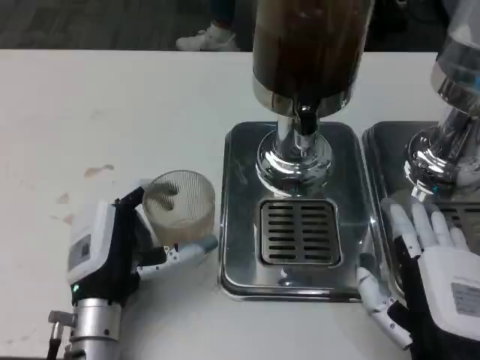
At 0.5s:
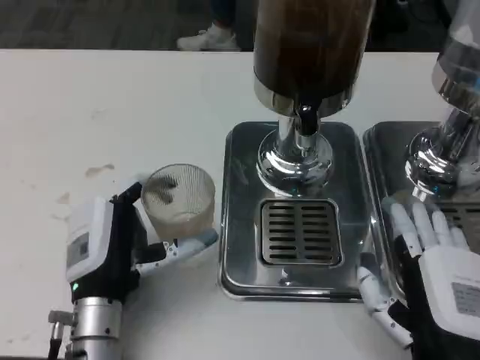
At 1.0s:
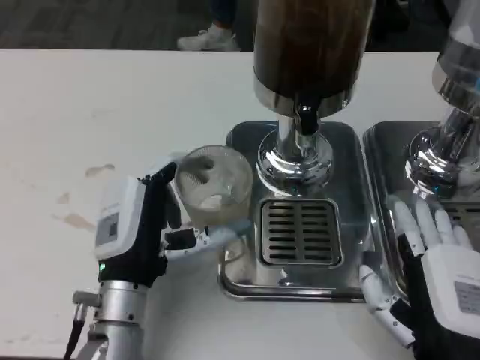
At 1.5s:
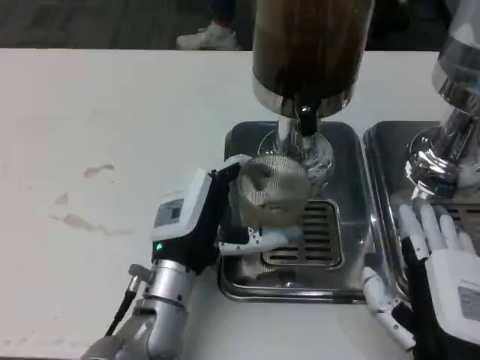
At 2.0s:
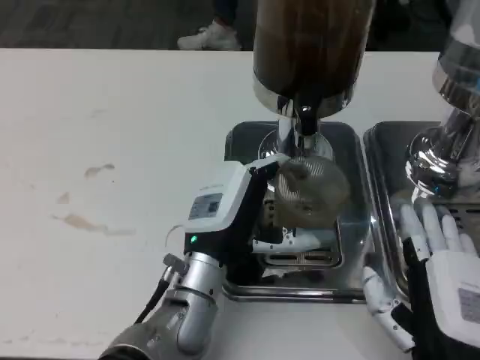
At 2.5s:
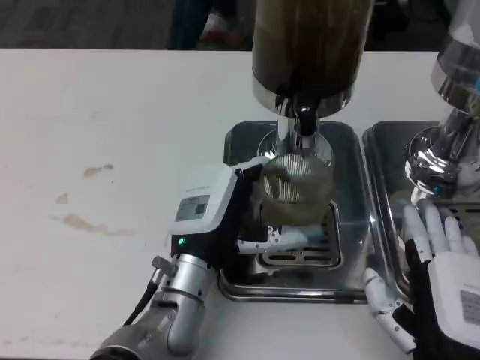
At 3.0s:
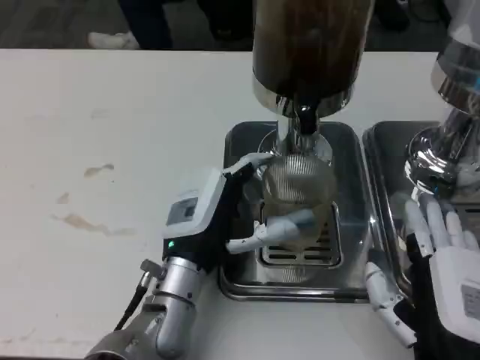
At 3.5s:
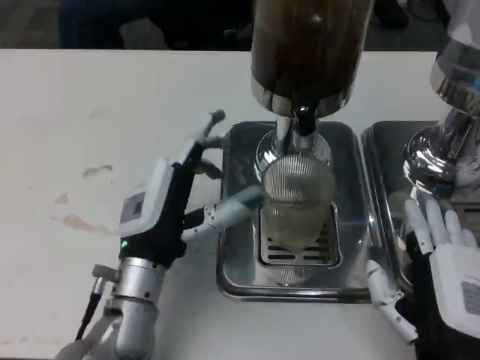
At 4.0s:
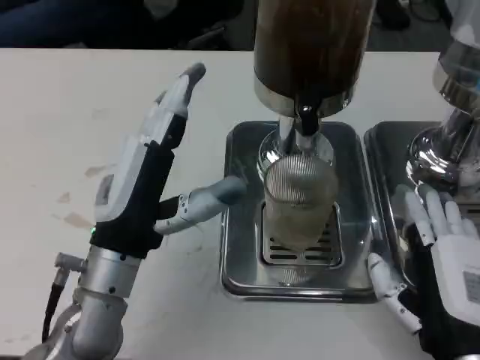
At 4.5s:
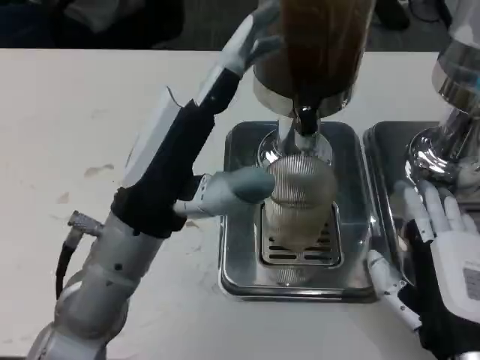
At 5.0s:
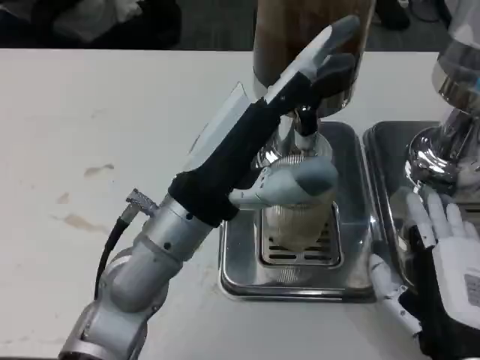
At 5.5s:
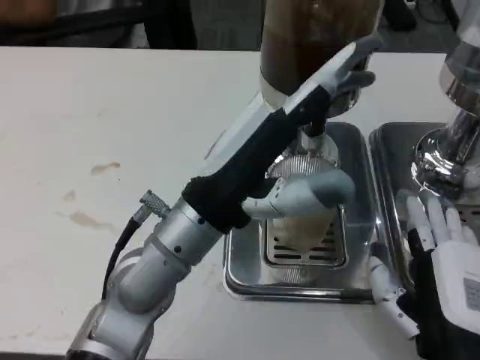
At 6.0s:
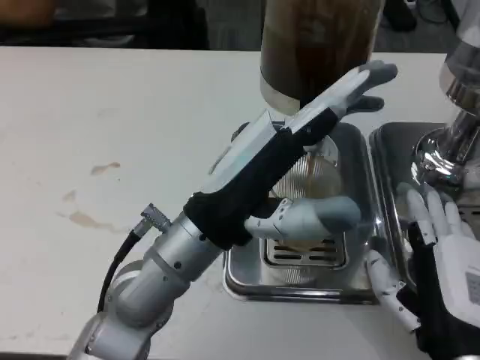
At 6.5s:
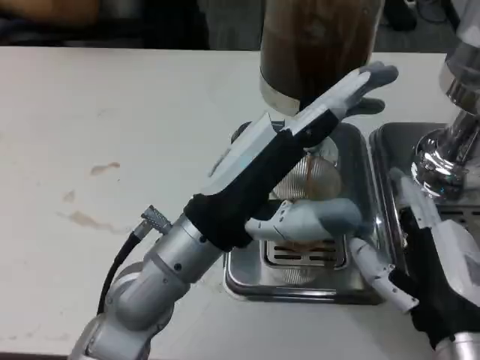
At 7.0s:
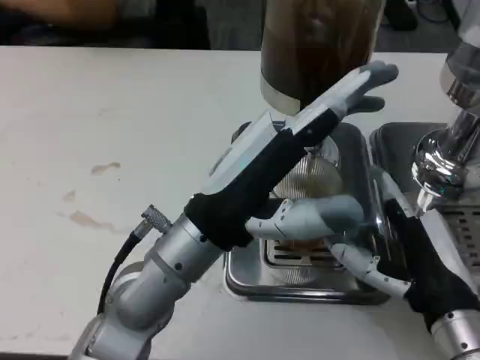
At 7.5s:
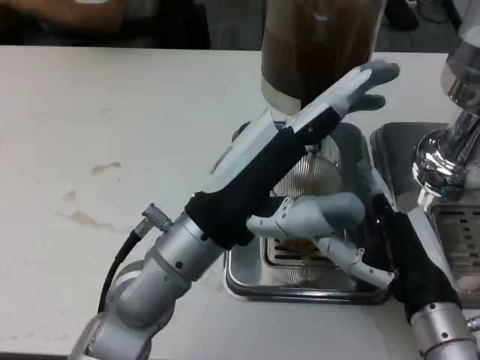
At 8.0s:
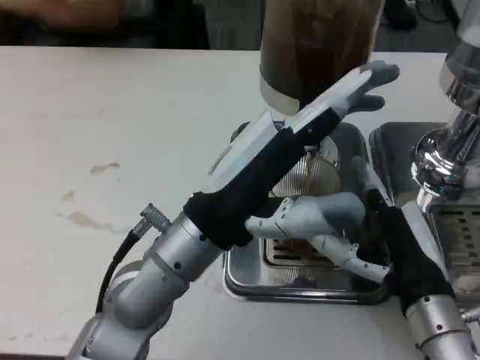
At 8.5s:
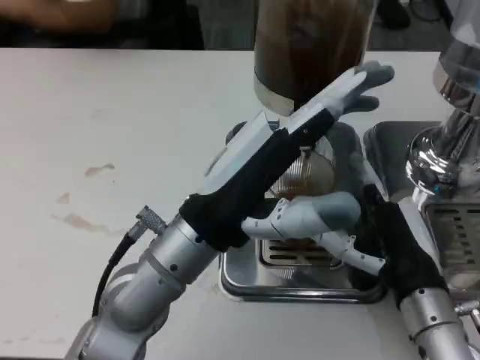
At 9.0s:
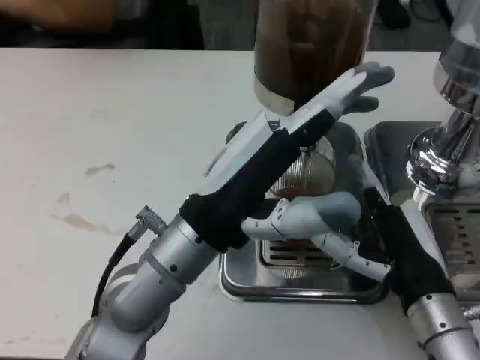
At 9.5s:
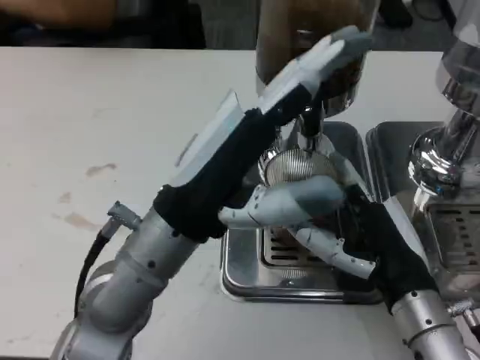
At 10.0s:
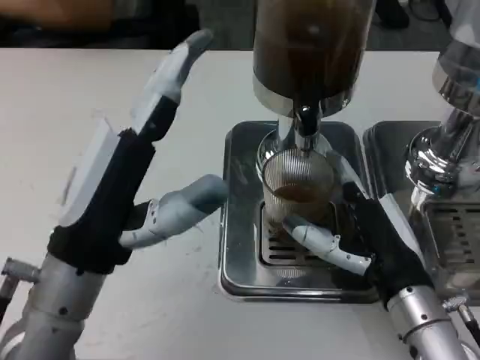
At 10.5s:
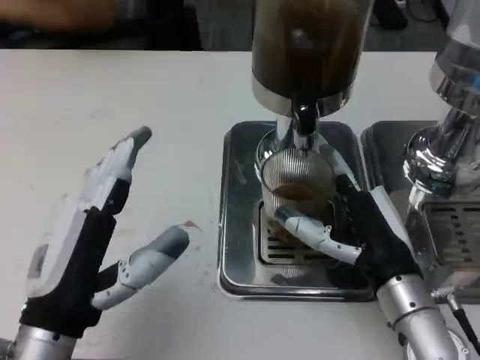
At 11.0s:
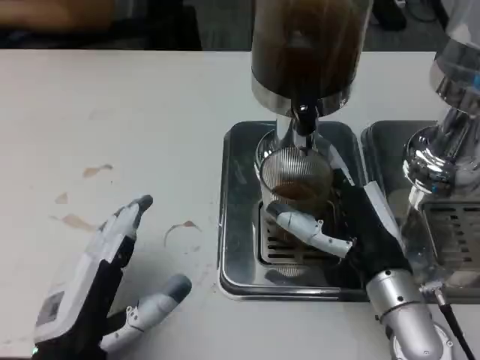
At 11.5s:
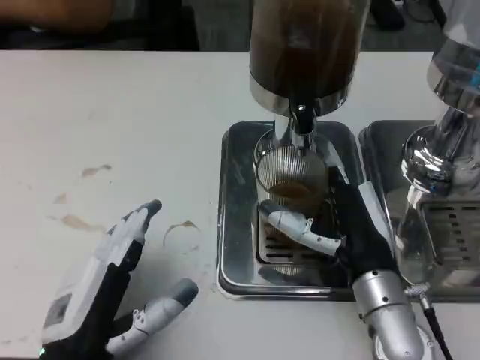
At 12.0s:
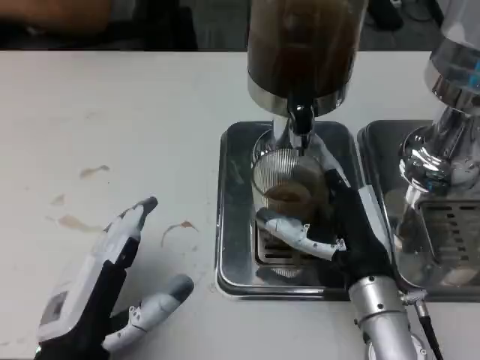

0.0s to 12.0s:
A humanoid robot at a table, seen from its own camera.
Task of the whole recording: Grasp the cup under the faucet to collect the drink, then remove the cup.
0.0s to 2.0s: The left hand goes about 10 cm to the right.
2.0s to 4.0s: The left hand heads to the left, covering roughly 10 cm.
4.0s to 6.0s: The left hand travels to the right by roughly 5 cm.
6.0s to 8.0s: The right hand travels forward by roughly 5 cm.
8.0s to 10.0s: The left hand goes some 10 cm to the left.
10.0s to 12.0s: The left hand moves downward and backward, some 10 cm.

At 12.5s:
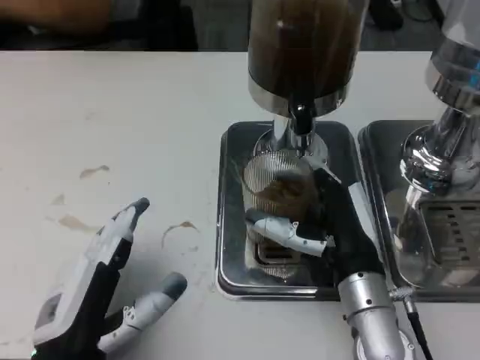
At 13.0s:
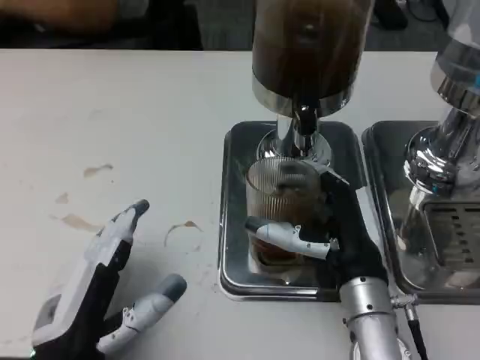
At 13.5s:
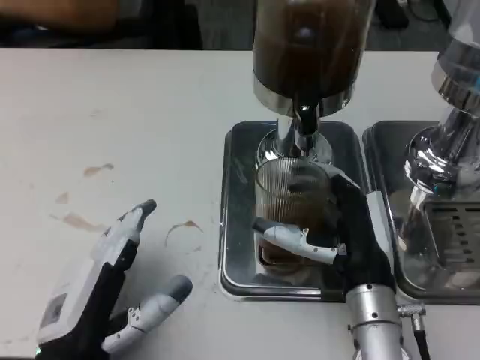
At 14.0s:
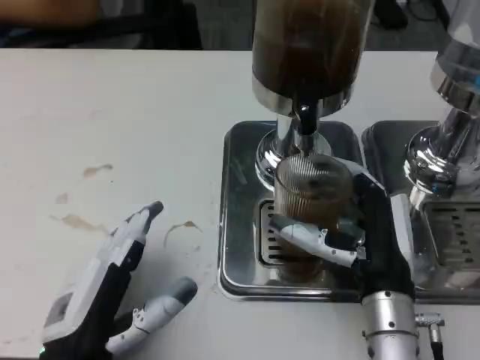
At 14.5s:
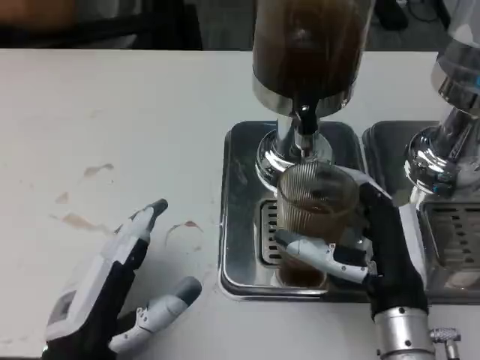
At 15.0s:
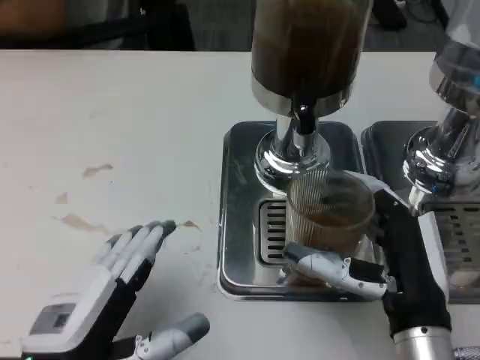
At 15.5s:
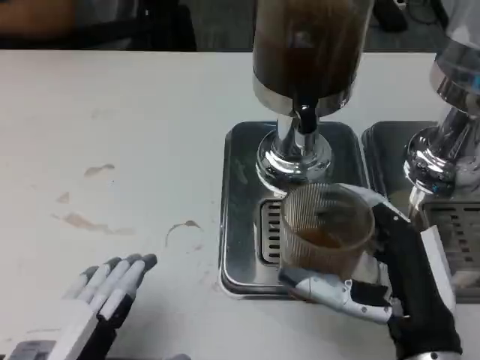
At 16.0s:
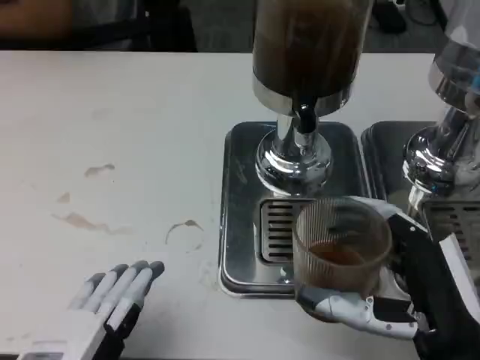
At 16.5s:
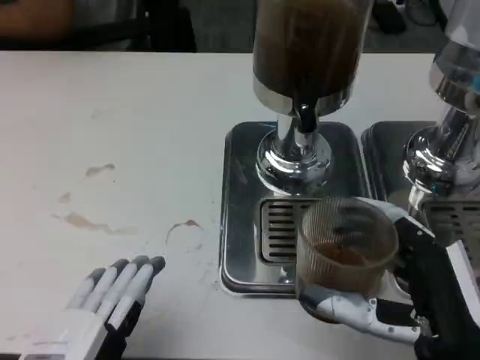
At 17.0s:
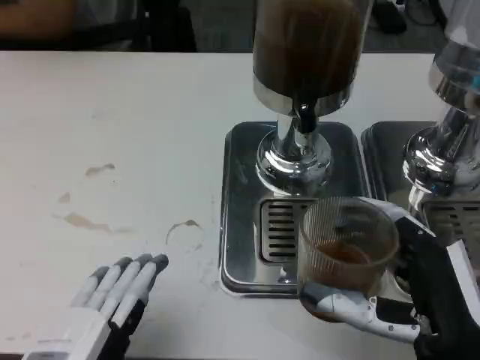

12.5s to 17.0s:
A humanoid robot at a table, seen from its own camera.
Task of the whole recording: Grasp the cup under the faucet to collect the drink, then remove the cup.
14.5s to 17.0s: The hands both shift backward by some 5 cm.

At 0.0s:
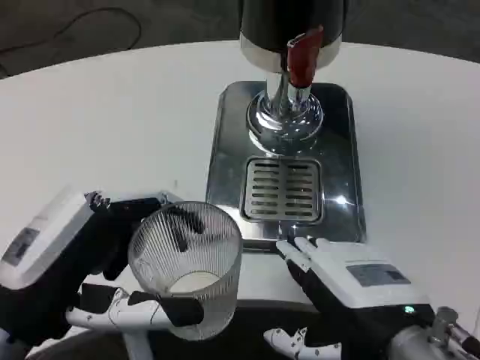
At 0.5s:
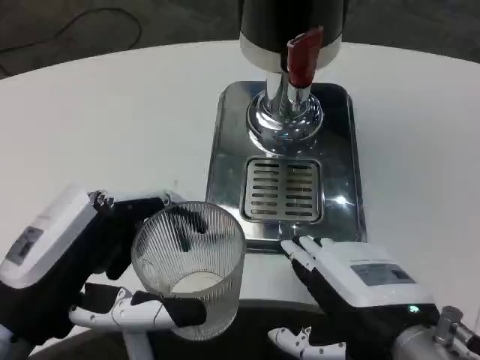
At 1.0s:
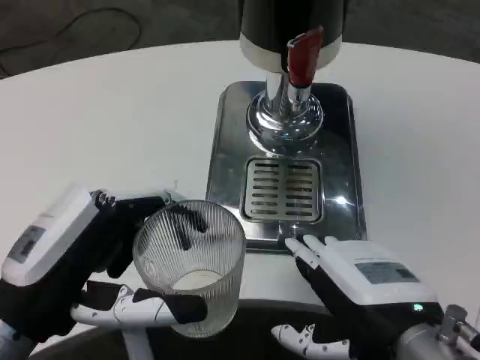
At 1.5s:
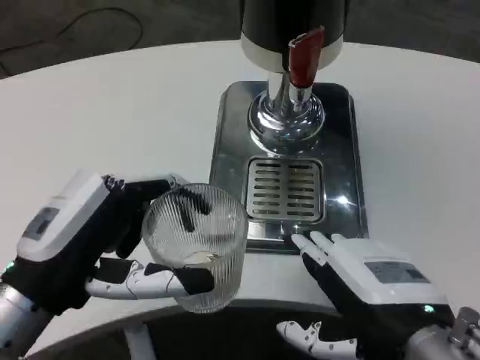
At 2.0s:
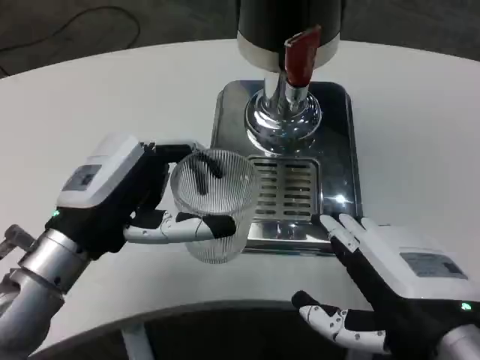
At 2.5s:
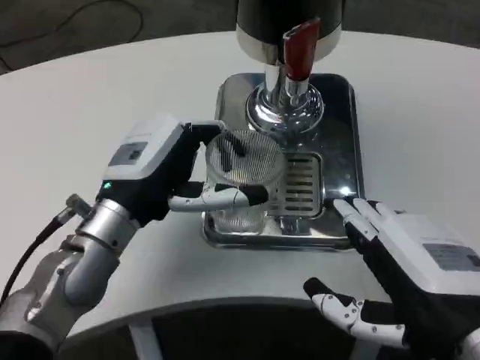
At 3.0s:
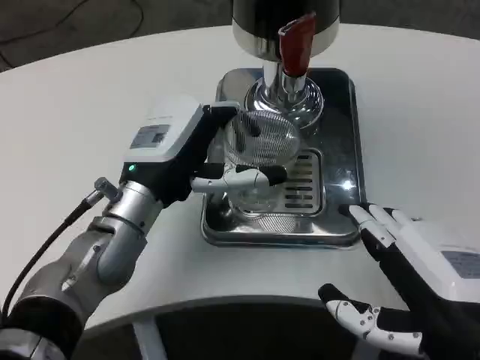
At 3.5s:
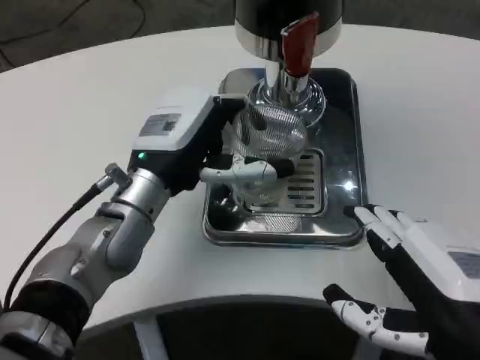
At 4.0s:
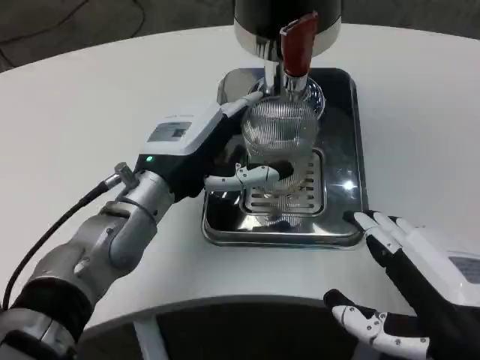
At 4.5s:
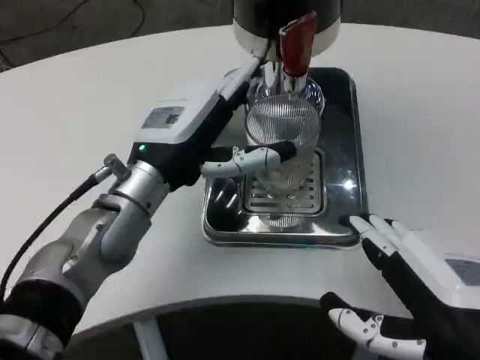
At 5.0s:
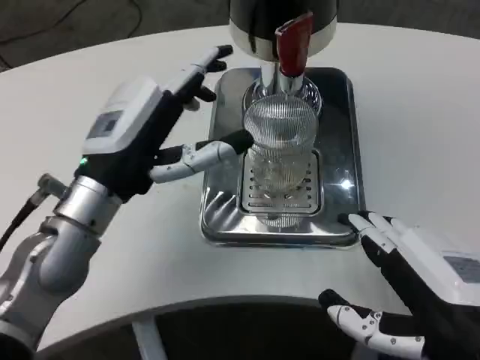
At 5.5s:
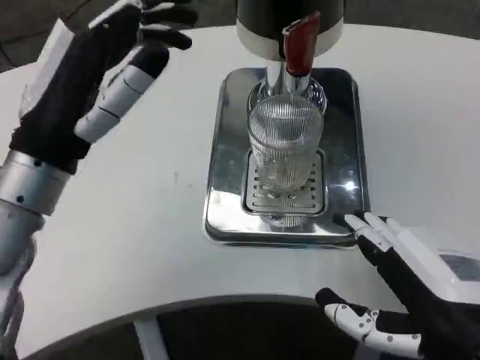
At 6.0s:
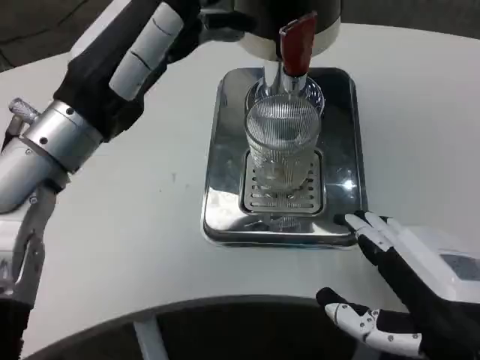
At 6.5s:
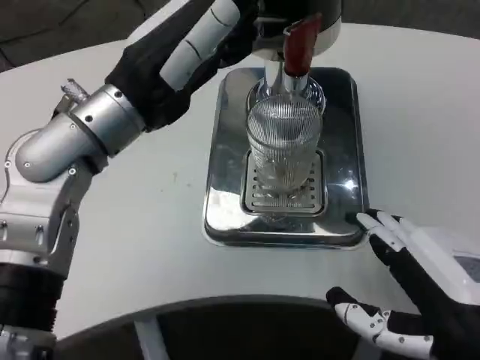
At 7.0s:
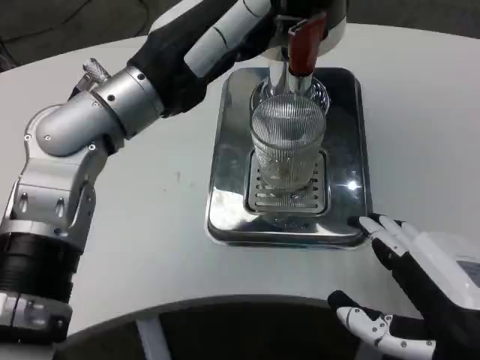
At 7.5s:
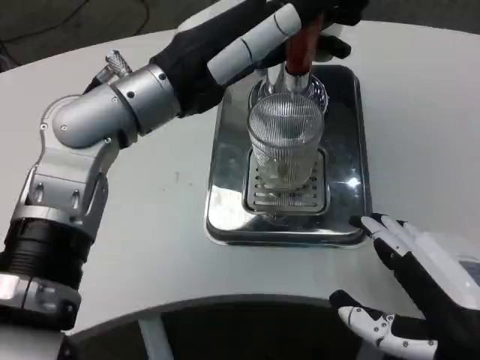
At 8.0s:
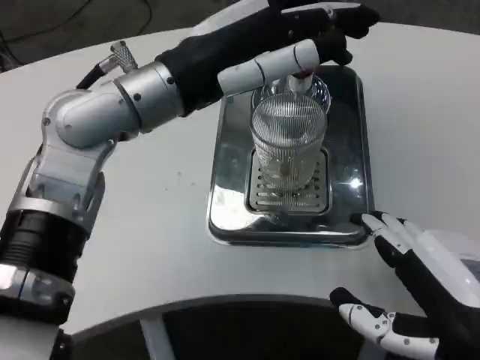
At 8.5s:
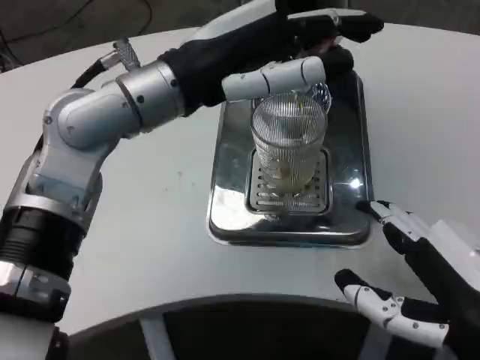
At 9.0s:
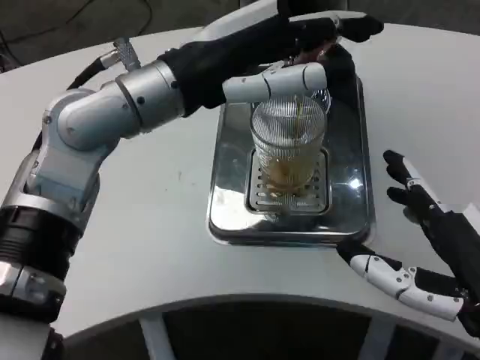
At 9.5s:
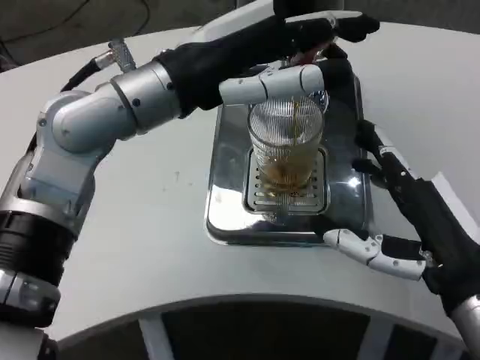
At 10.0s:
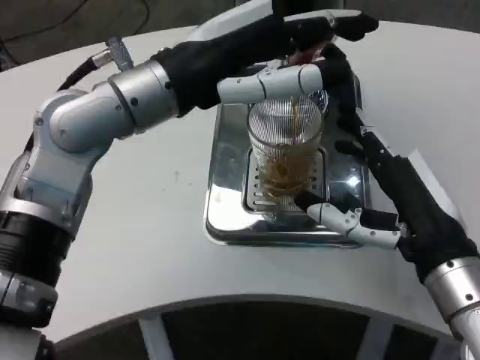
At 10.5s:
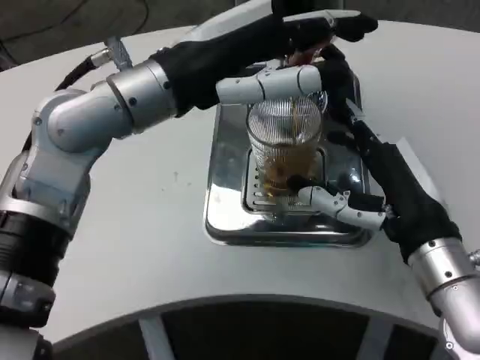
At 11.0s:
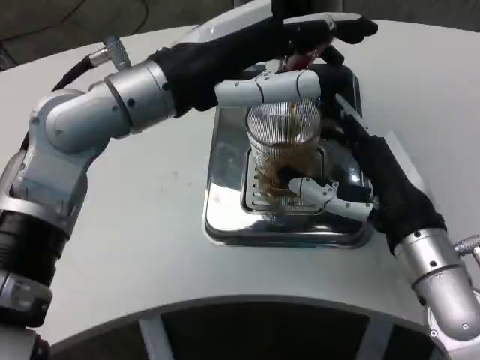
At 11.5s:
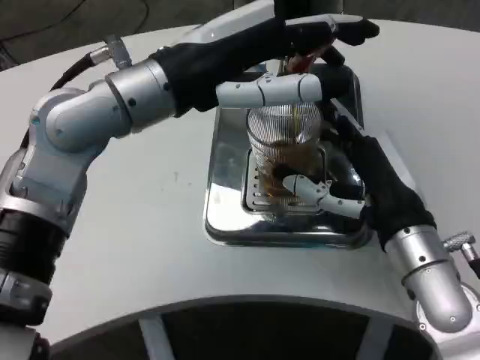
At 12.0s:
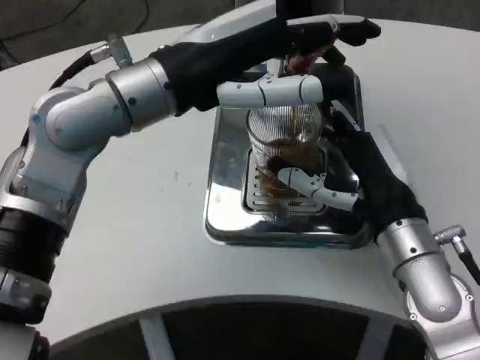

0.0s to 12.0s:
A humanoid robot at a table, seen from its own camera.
Task of the whole recording: Grasp the cup under the faucet to collect the drink, then remove the cup.
0.0s to 2.0s: The left hand heads forward, covering about 10 cm.
2.0s to 4.0s: The left hand heads forward and to the right, covering some 10 cm.
4.0s to 6.0s: The left hand goes approximately 10 cm upward and to the left.
6.0s to 8.0s: The left hand travels to the right by roughly 5 cm.
8.0s to 10.0s: The right hand goes some 10 cm forward.
10.0s to 12.0s: The right hand goes some 5 cm forward.
